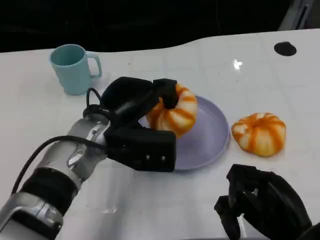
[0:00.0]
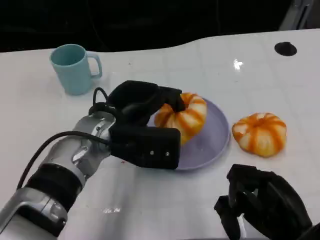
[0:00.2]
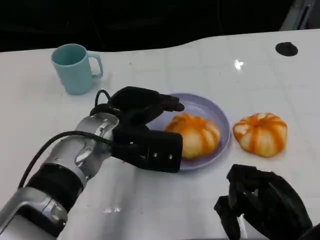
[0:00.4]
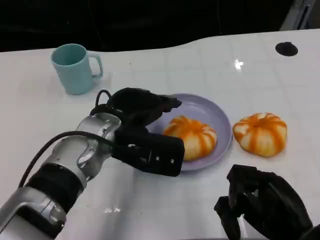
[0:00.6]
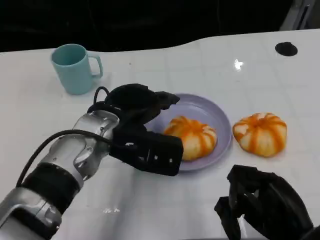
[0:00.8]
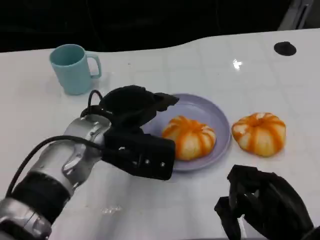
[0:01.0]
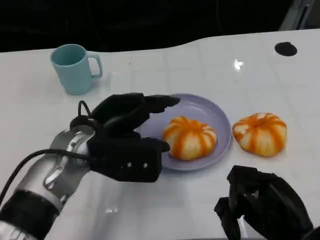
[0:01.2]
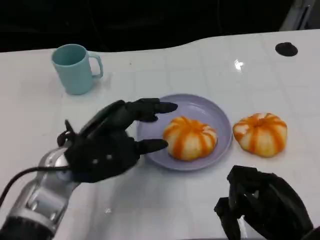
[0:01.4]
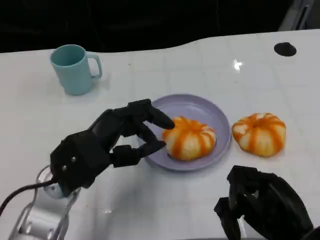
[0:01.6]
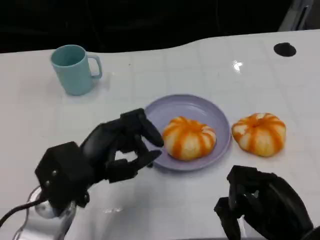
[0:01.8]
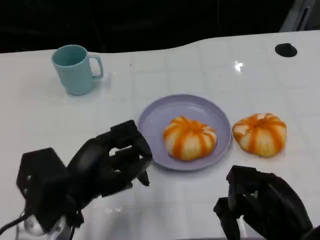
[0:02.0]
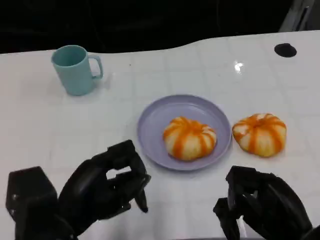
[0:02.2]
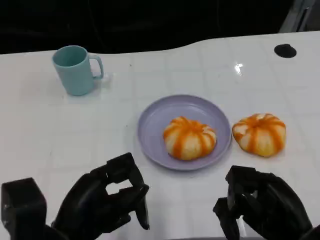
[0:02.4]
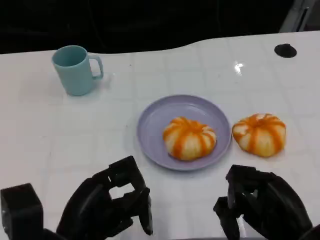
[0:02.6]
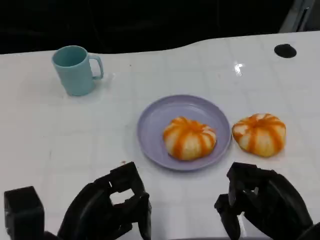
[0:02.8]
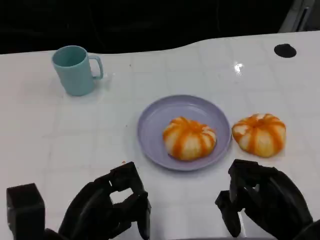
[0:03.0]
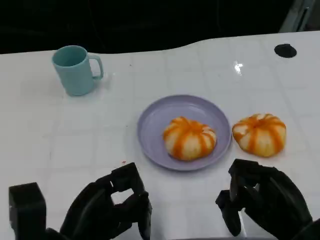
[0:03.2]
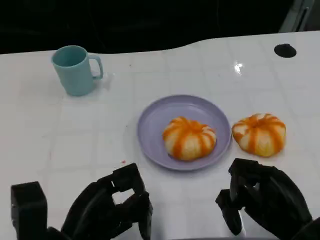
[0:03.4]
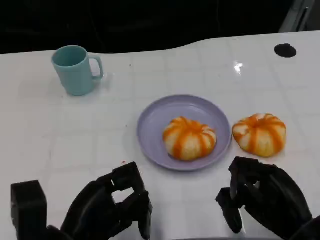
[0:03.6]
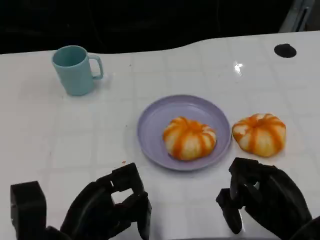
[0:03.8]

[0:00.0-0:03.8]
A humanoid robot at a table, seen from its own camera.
Task of the whole recording: Grasp the bread from the table and place it into the plate.
0:00.0 to 0:01.2: The hands move only a little.
0:01.2 to 0:02.6: The left hand shifts approximately 15 cm backward.
0:02.6 to 0:03.8: There are only small adjustments of the hands.

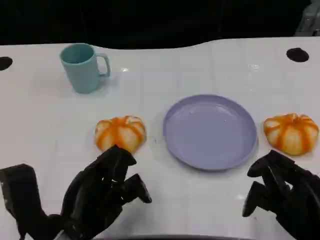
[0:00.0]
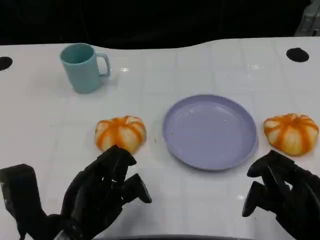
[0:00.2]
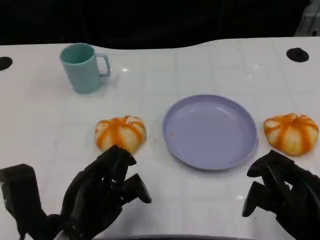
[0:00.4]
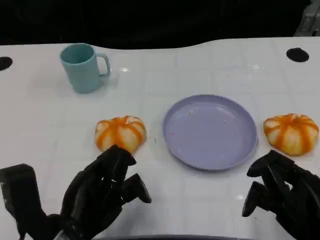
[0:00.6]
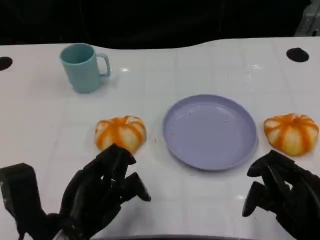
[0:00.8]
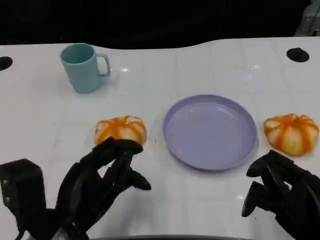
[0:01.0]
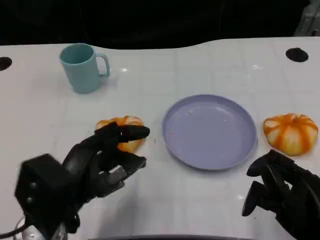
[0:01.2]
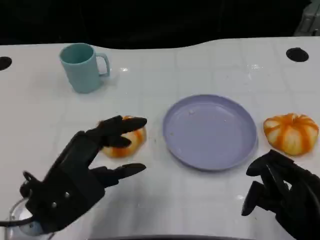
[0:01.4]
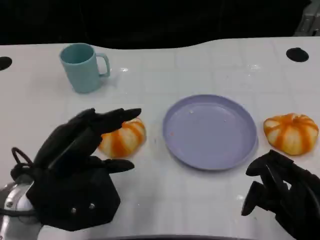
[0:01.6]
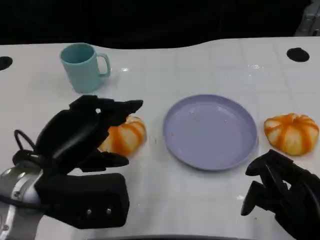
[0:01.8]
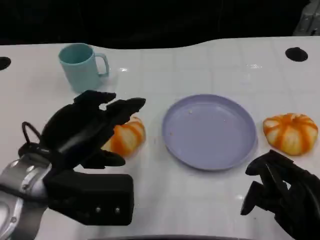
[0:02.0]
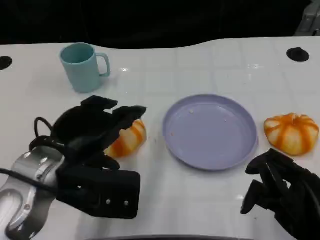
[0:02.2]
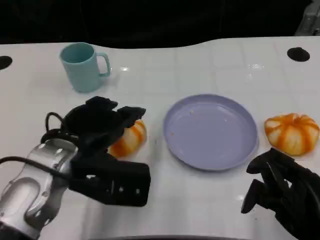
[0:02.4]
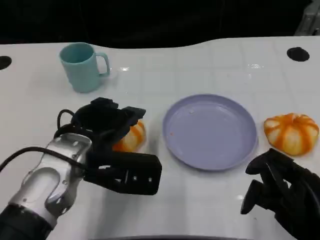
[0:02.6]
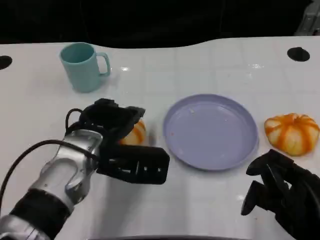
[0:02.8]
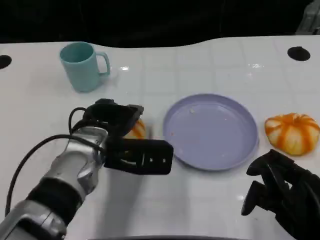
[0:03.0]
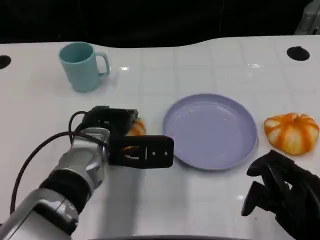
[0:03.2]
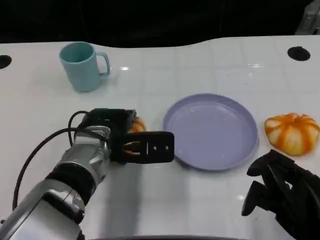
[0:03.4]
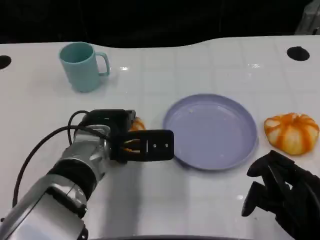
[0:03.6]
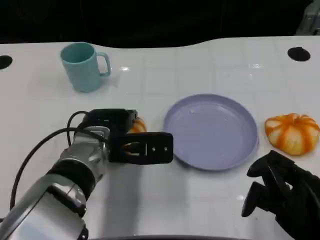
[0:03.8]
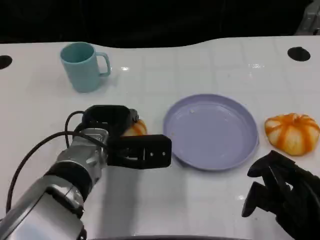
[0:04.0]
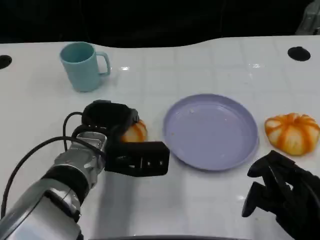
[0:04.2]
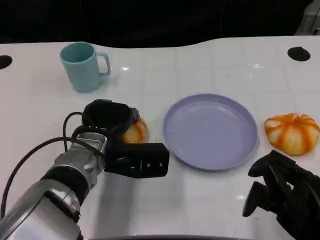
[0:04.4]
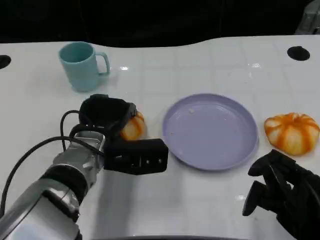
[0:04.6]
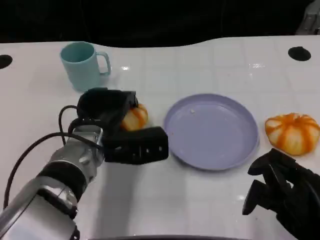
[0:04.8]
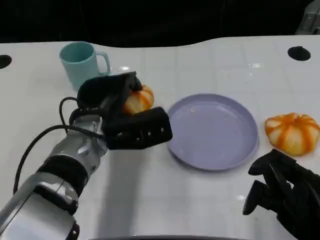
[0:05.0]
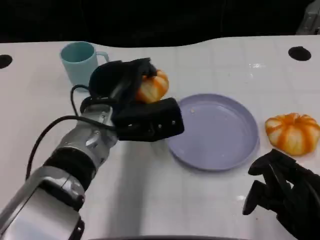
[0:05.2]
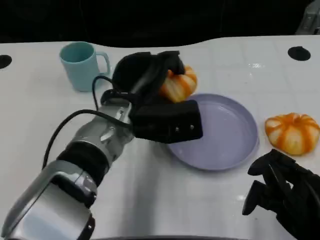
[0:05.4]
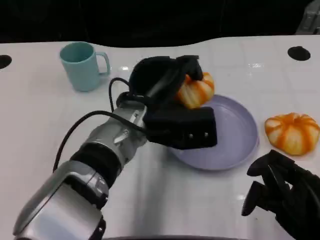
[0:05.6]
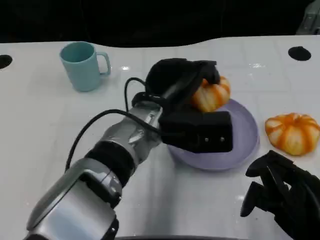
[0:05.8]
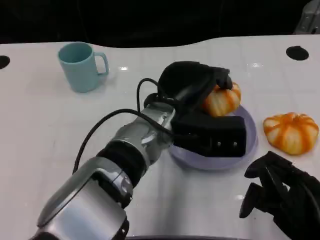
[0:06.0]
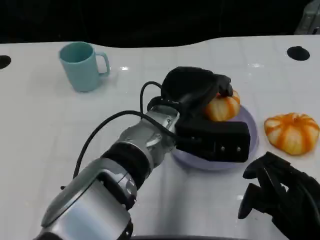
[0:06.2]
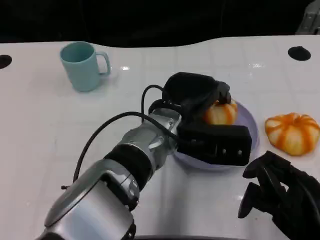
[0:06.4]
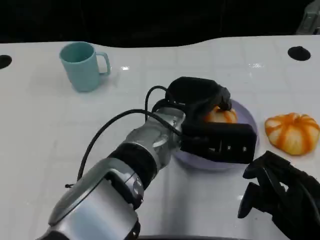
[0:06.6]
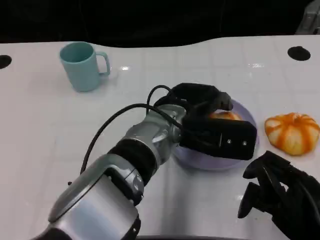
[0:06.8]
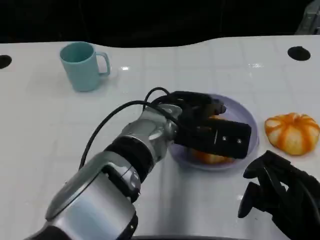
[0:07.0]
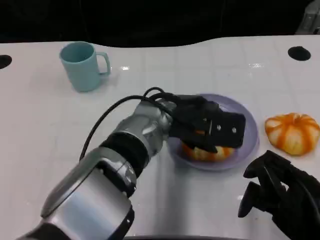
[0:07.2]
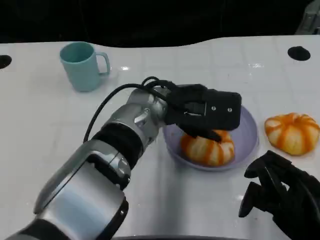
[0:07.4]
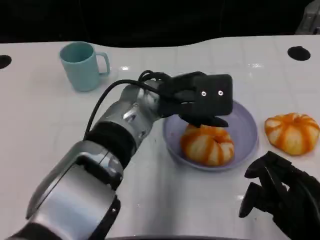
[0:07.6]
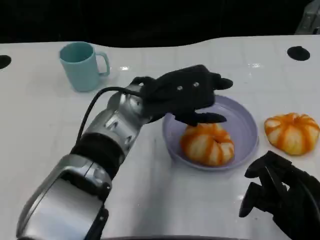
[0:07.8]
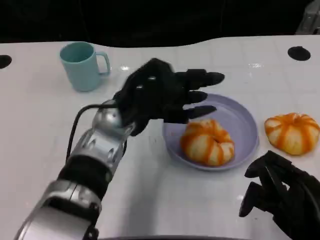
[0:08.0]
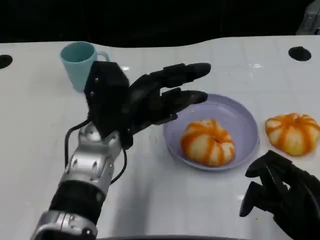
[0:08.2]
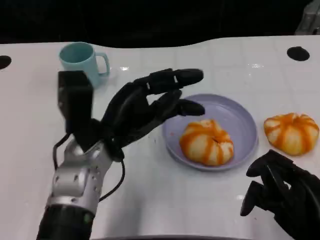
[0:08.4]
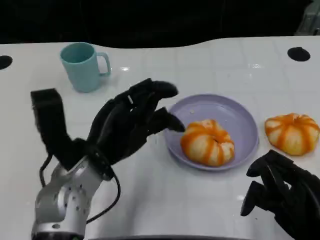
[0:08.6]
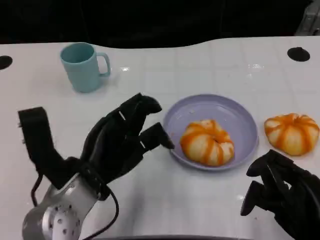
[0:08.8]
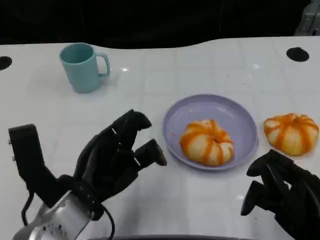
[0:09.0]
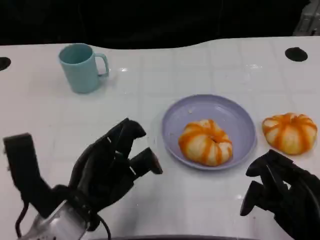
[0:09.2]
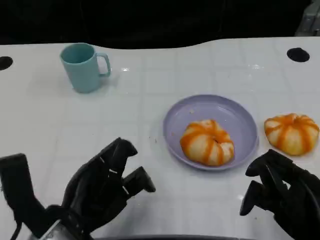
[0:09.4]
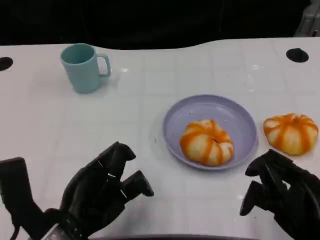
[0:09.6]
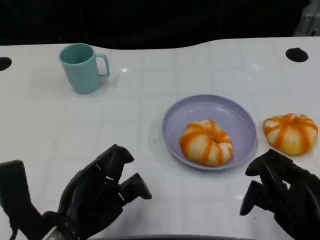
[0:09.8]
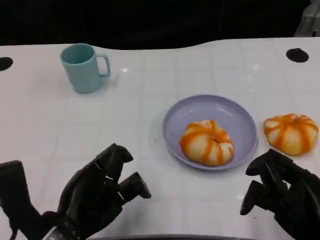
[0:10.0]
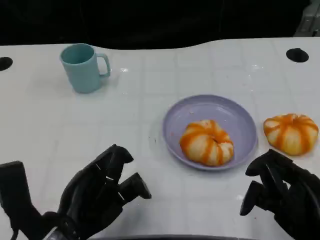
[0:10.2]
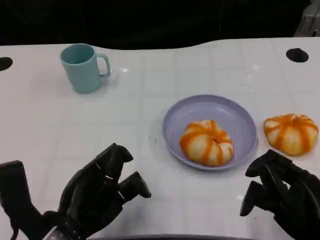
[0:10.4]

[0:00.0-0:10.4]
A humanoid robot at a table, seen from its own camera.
Task of the whole recording: Grasp the bread from the table and place it into the plate.
0:00.0 to 0:01.4: The left hand shifts by some 5 cm.
0:01.4 to 0:03.0: The left hand travels forward and to the right by approximately 15 cm.
0:03.0 to 0:04.4: The hands move only a little.
0:04.4 to 0:06.0: The left hand travels to the right and upward by roughly 10 cm.
0:07.4 to 0:09.0: The left hand travels to the left, backward and downward by approximately 20 cm.
0:09.0 to 0:10.4: The hands move only a little.

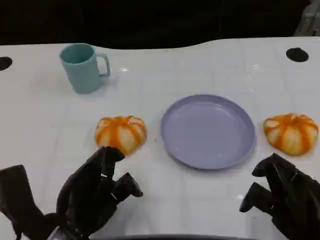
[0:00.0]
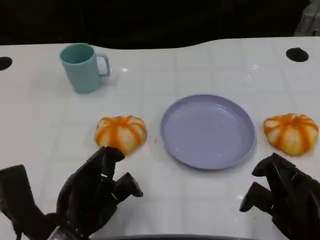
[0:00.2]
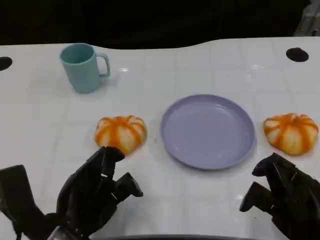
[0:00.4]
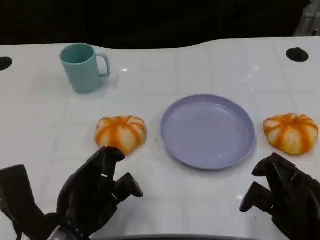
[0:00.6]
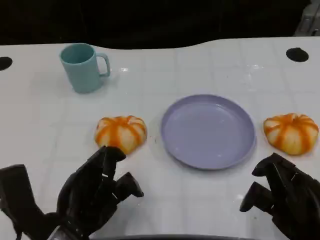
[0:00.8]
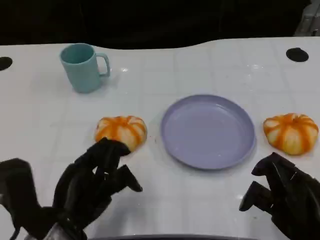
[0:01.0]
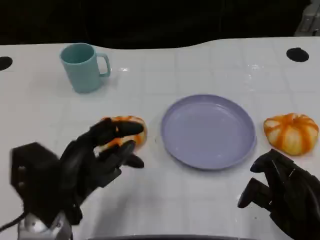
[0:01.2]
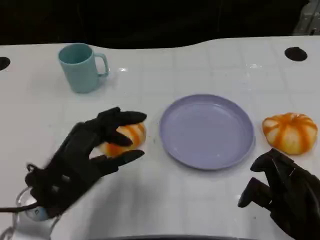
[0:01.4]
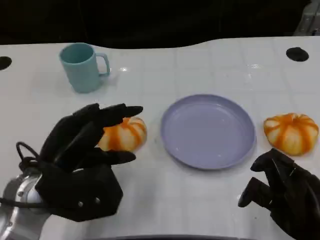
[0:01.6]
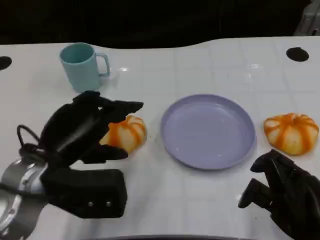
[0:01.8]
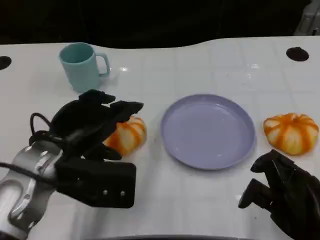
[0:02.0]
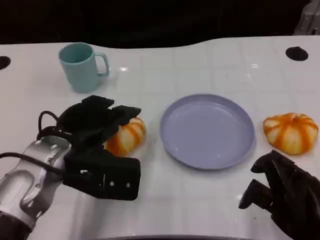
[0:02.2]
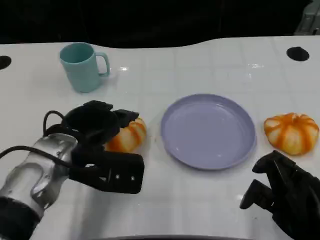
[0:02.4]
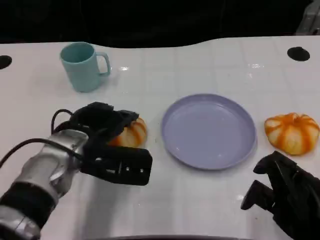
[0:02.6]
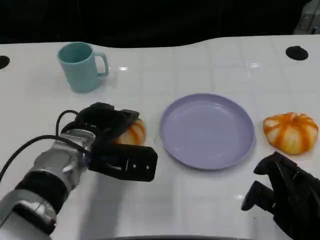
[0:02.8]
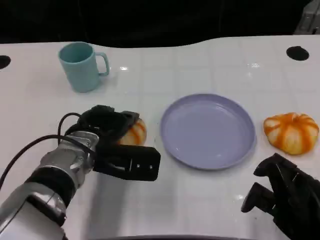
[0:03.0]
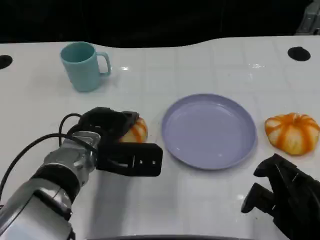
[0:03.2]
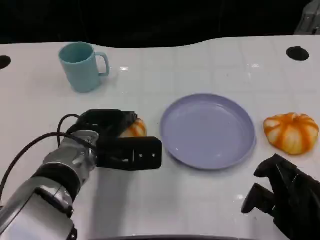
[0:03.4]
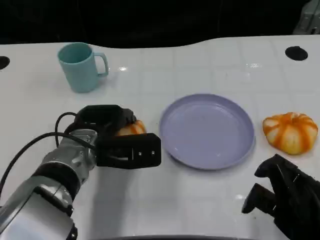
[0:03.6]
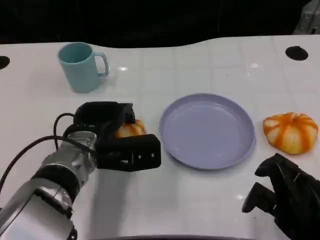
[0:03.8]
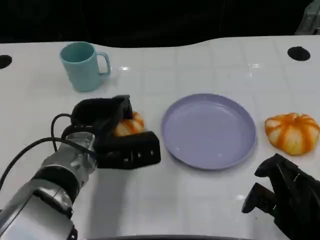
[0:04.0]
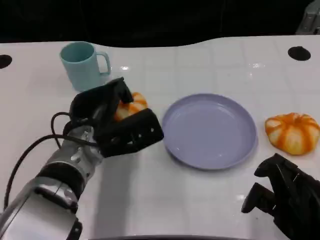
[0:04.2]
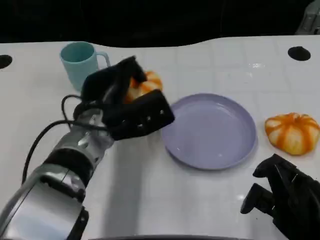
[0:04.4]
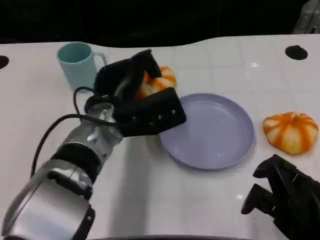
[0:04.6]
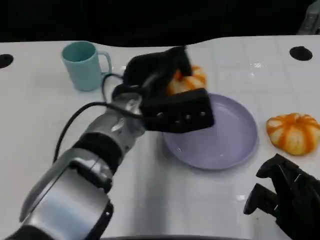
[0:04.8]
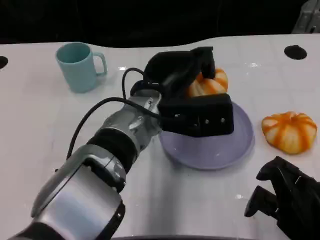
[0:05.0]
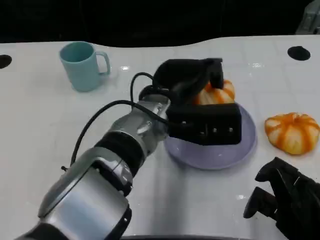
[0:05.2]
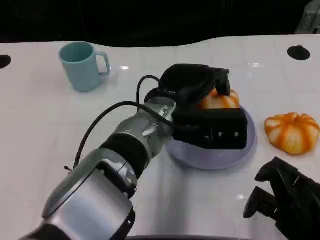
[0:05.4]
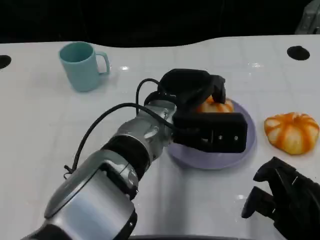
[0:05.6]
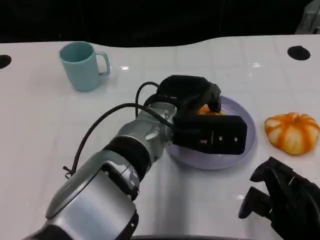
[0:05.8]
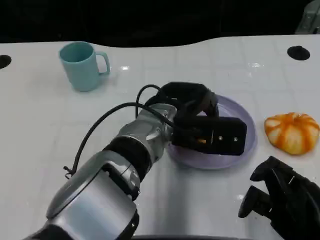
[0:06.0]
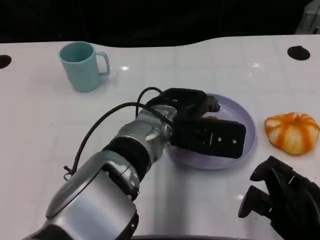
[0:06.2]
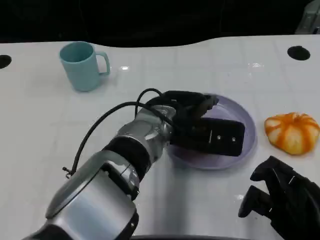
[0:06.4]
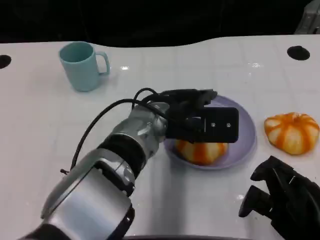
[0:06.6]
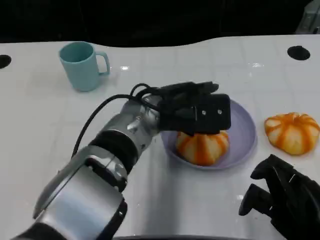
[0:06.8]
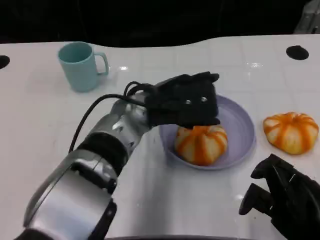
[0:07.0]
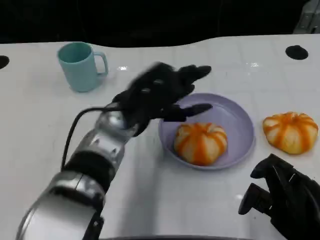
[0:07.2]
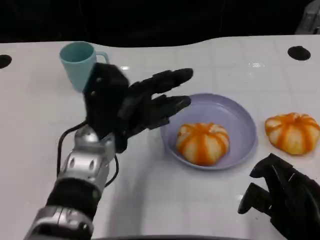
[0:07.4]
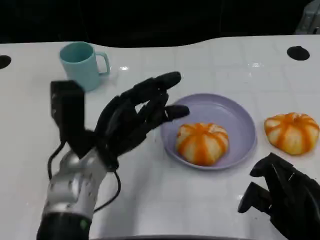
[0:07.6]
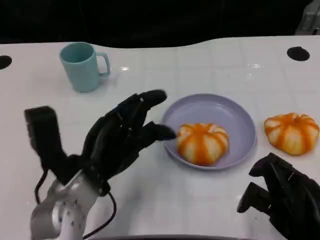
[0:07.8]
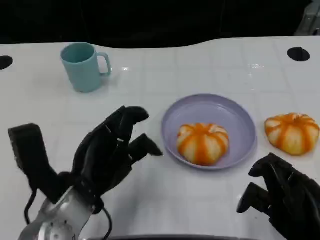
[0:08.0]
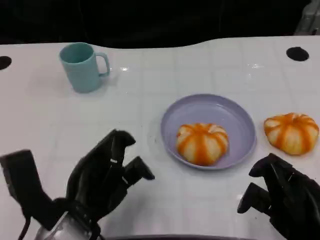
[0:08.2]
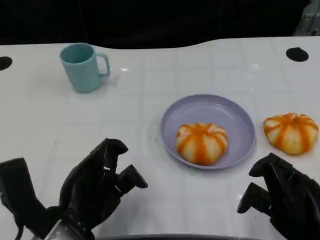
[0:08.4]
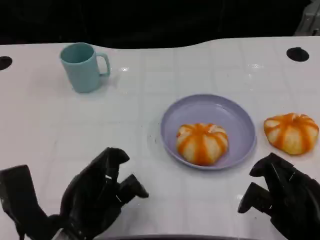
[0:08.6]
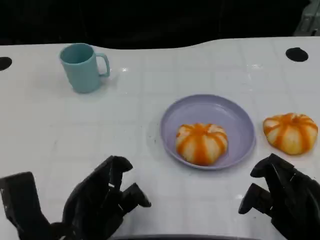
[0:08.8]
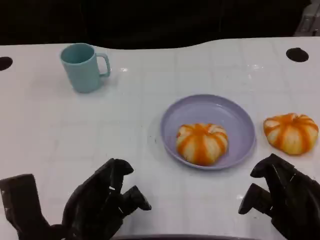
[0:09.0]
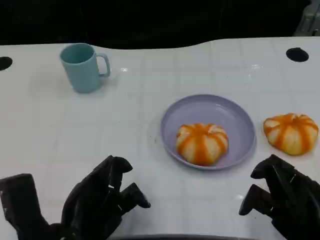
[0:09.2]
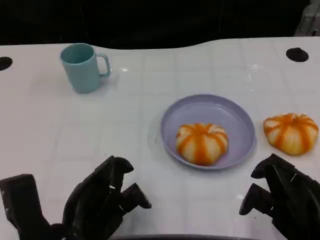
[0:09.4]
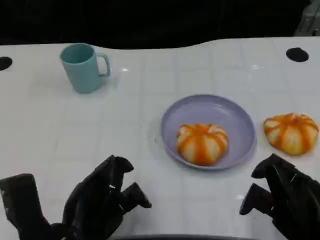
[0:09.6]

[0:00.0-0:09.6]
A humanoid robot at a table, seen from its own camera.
Task of the whole recording: Grasp the bread from the table and place it into the plate.
0:00.0 to 0:01.6: The left hand moves forward, approximately 5 cm.
0:01.6 to 0:03.2: The left hand shifts roughly 10 cm forward and to the right.
0:03.2 to 0:04.8: The left hand is displaced to the right and upward by some 10 cm.
0:06.4 to 0:08.0: The left hand heads to the left and backward, covering roughly 15 cm.
0:08.0 to 0:09.6: The left hand moves some 5 cm.
